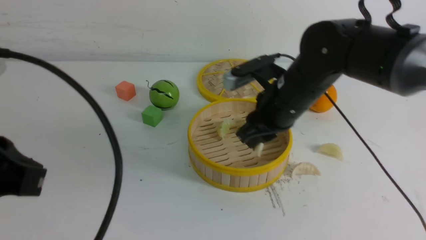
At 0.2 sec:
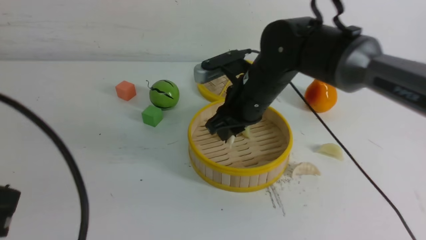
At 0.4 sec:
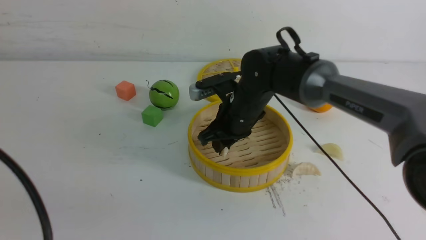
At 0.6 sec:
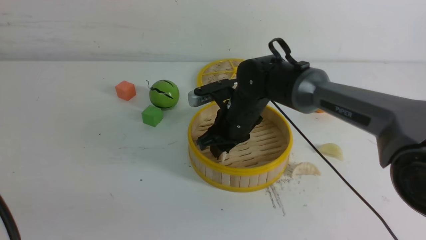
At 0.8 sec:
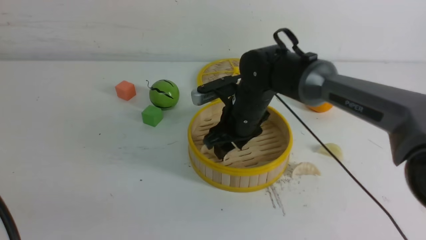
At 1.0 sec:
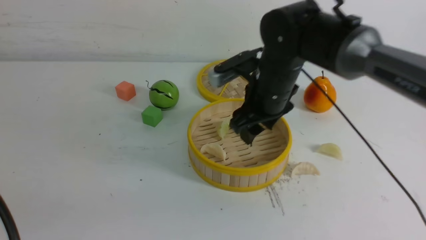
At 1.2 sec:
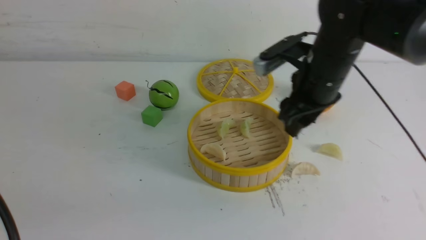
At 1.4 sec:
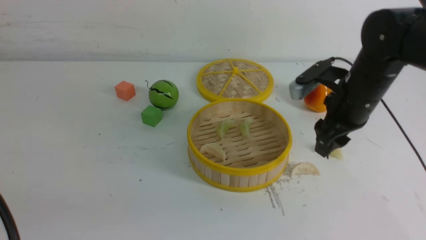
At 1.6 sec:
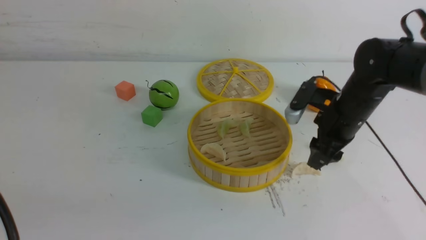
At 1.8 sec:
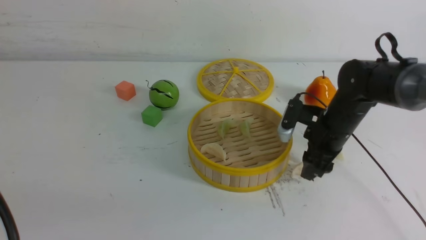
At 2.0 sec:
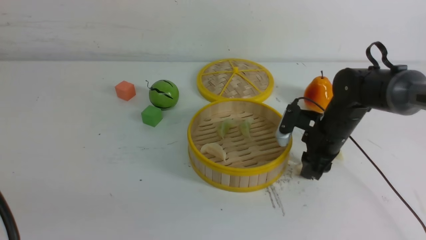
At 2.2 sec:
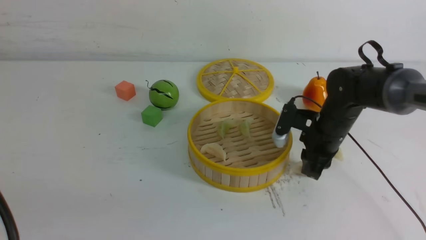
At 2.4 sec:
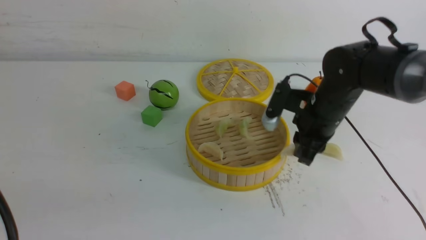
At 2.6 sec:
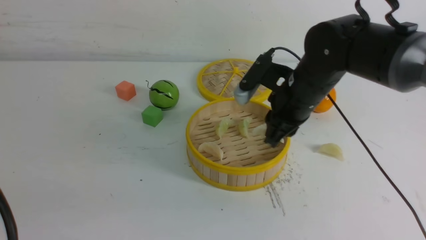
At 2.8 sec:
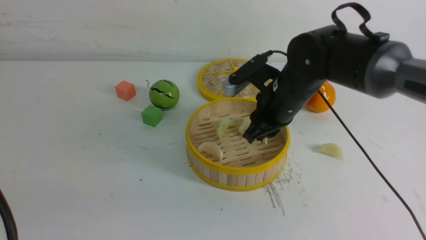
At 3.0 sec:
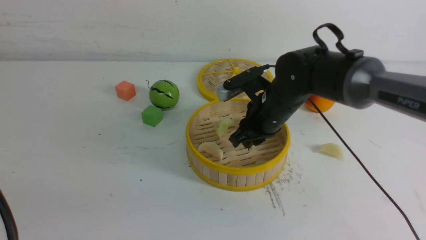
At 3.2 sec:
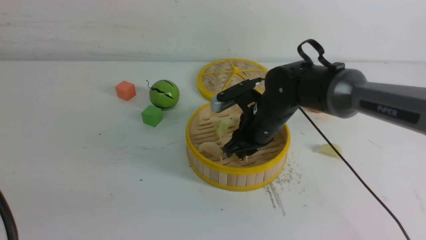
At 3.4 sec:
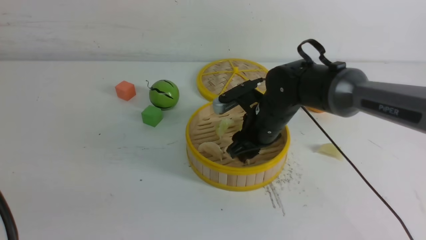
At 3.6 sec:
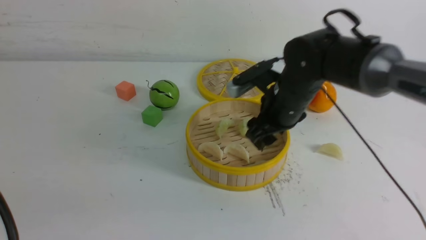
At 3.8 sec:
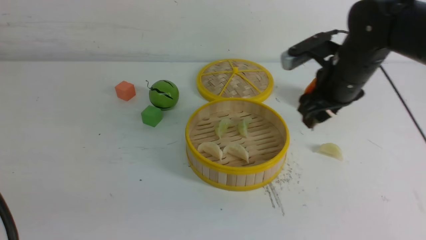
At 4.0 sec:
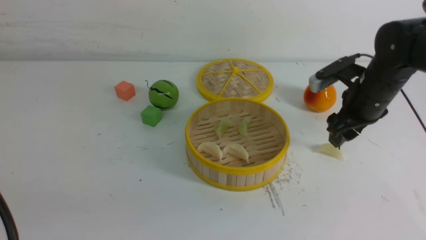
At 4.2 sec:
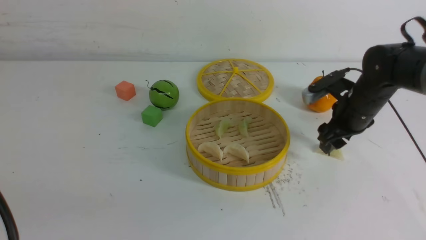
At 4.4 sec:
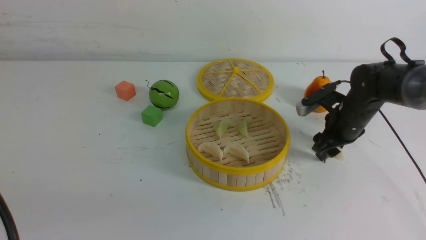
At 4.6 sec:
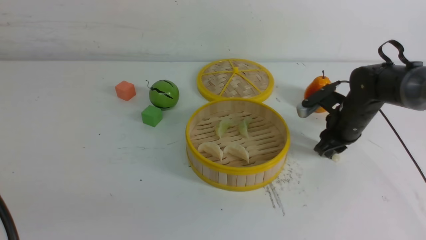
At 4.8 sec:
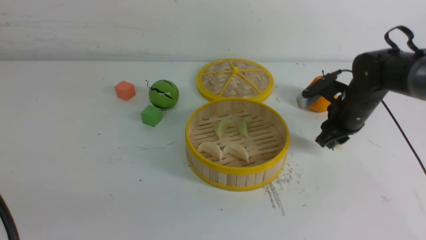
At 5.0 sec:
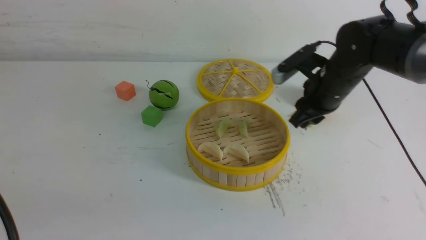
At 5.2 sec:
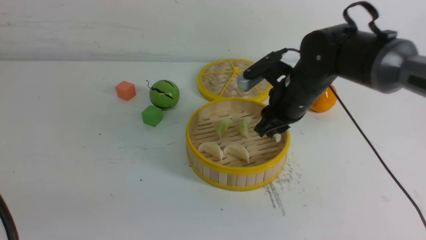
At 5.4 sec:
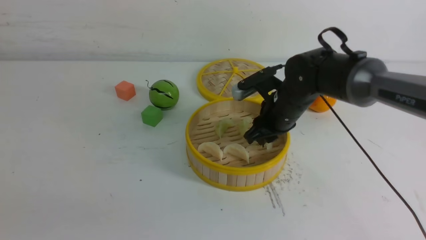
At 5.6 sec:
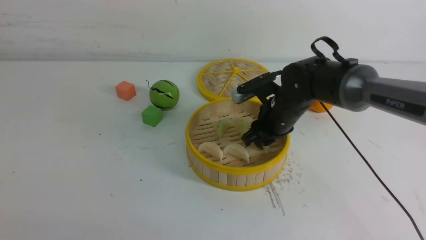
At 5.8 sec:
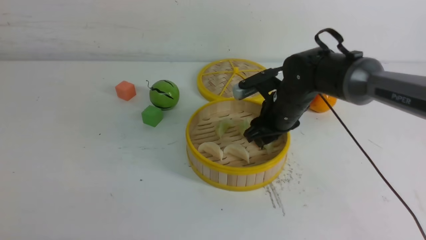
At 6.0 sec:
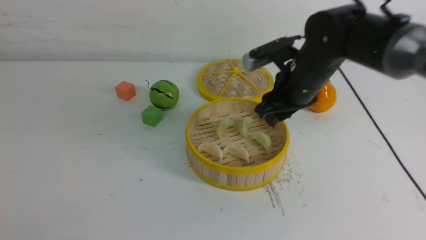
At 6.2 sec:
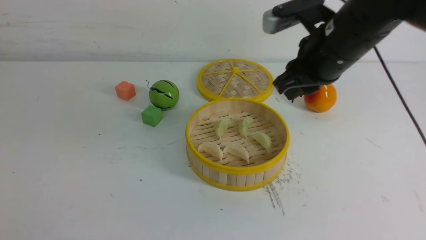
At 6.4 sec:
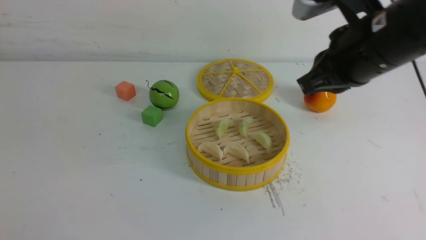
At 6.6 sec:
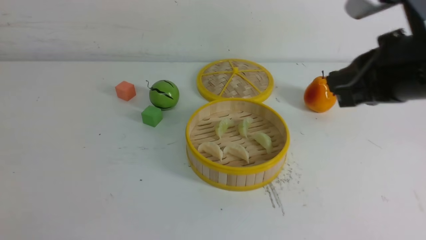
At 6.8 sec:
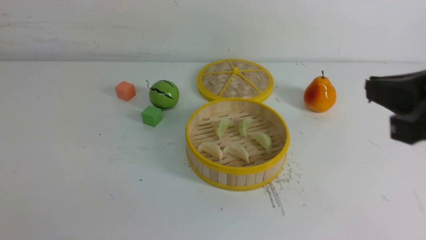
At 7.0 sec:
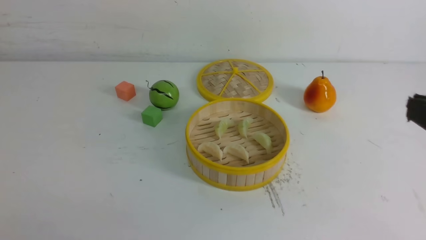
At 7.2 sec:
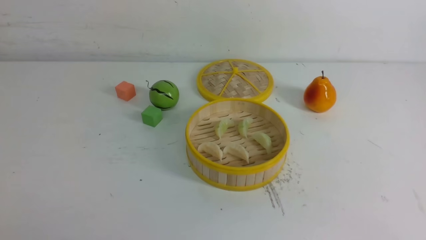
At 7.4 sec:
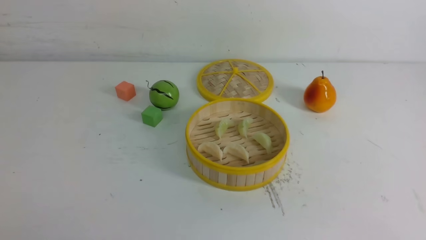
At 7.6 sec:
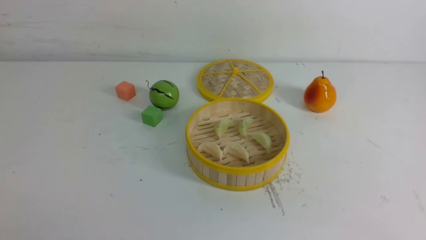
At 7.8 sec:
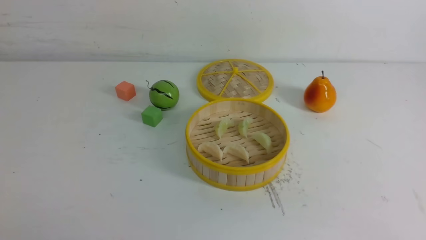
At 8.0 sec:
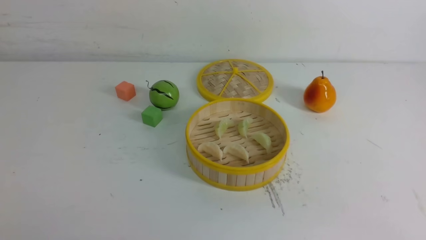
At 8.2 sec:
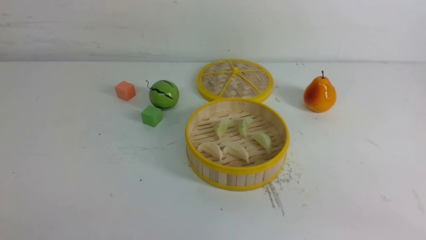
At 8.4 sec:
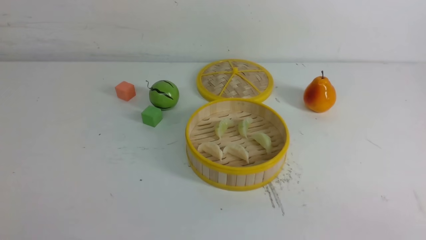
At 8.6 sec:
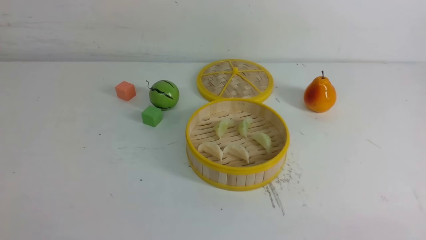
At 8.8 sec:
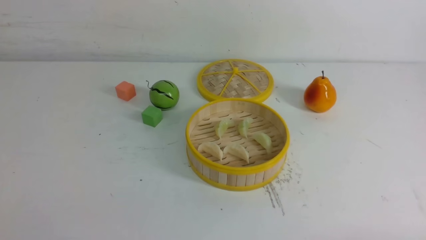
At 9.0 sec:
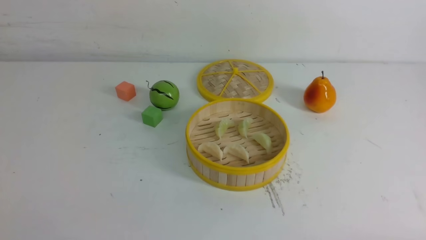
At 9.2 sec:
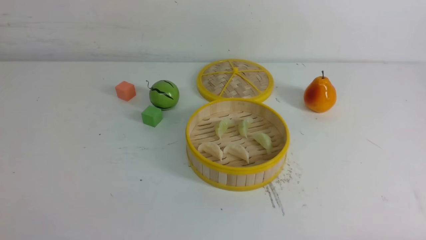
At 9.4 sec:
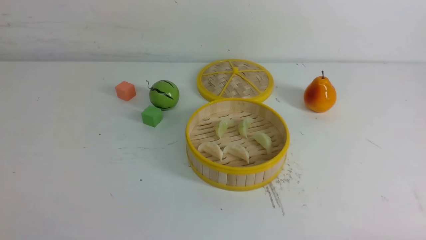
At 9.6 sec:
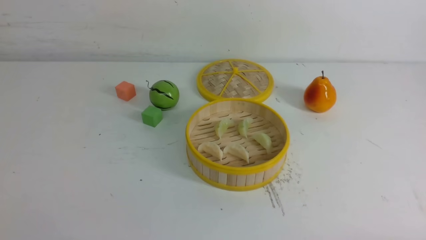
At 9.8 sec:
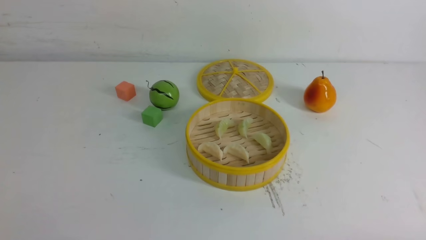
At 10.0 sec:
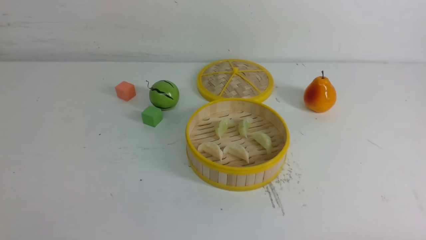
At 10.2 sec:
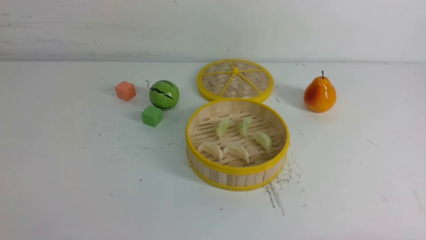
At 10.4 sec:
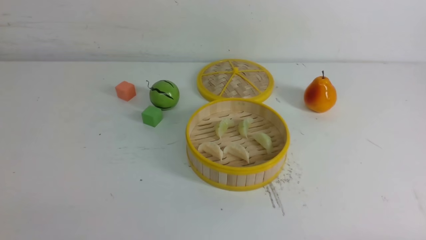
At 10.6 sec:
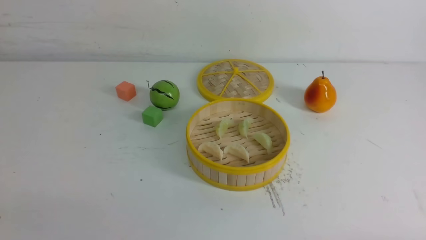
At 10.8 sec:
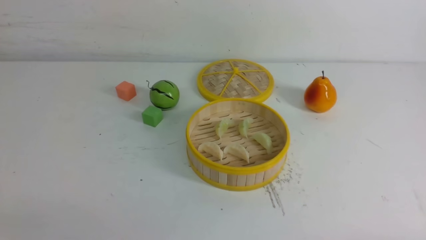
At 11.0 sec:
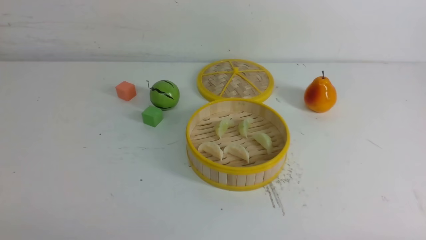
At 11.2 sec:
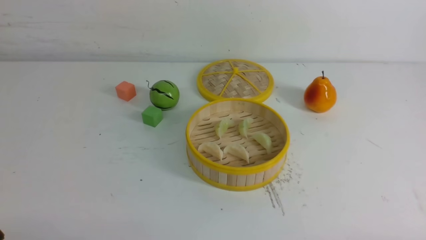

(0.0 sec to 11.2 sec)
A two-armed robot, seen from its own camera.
Task of the whole recording: put the dumplings into the steamer on the white table.
Step, 0.0 sec - 0.6 sec: use the right arm to put the dumpling into the steamer.
Step, 0.8 sec - 2.0 sec: use the right arm to grab a dumpling.
Step, 2.2 sec - 3.4 sec: use the right arm to put the dumpling into the steamer.
Step, 3.6 sec - 4.8 sec: use the right arm to grab a dumpling.
Step, 5.0 sec - 5.8 sec: use the right arm to put the dumpling into the steamer.
0.0 sec - 1.6 sec: The left gripper goes some 5 cm backward. The right gripper goes some 10 cm to the right, and opens its fingers.
1.6 sec - 3.2 sec: The right gripper shifts some 10 cm to the left, and closes up.
3.2 sec - 4.8 sec: The right gripper travels to the right by about 15 cm, and opens, then closes again.
4.8 sec - 6.4 sec: The left gripper travels downward and backward by some 10 cm, while the right gripper is displaced upward, backward and to the left by roughly 25 cm.
6.4 sec - 8.0 sec: The right gripper is displaced backward and to the right by about 25 cm.

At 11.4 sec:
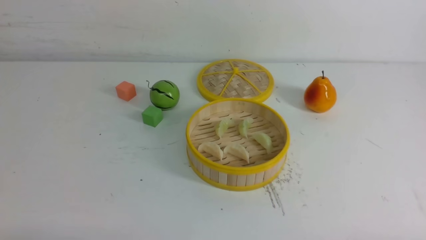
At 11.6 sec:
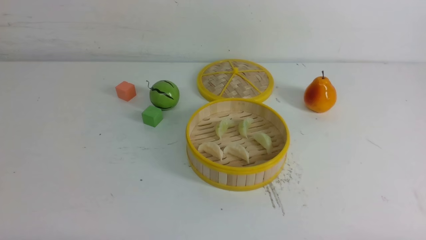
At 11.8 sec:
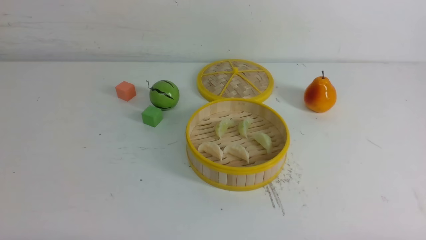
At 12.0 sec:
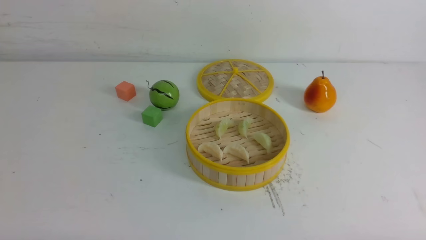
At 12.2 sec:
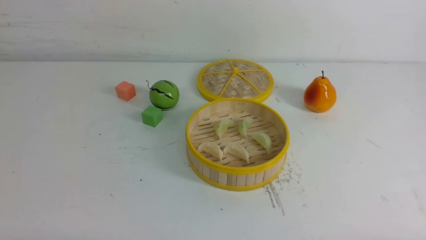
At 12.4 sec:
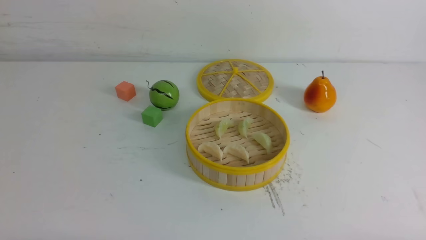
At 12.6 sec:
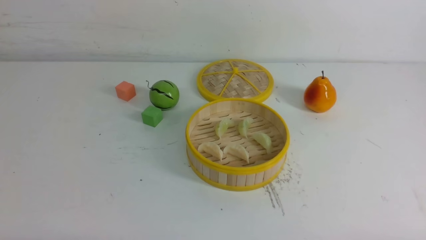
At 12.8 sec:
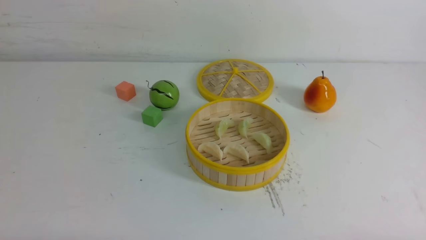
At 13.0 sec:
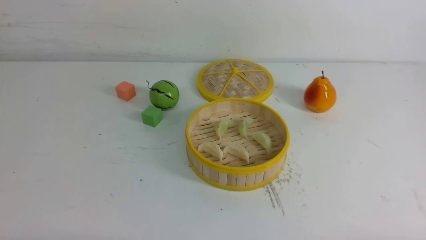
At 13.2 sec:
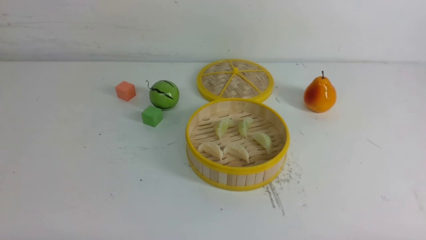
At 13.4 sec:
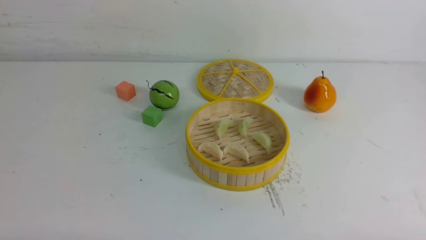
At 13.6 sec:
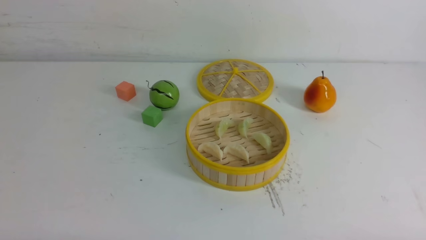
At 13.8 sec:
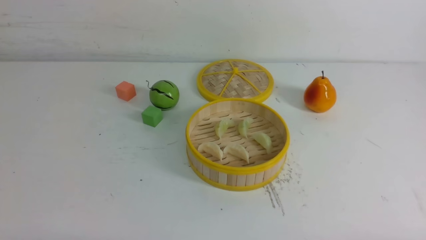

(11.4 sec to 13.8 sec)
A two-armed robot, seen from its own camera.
Task of the whole recording: put the dumplings into the steamer on the white table.
12.6 sec - 13.8 sec: Neither gripper changes place.
